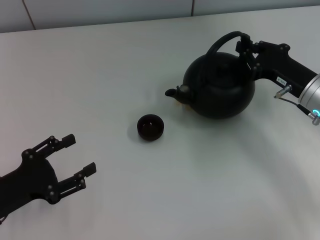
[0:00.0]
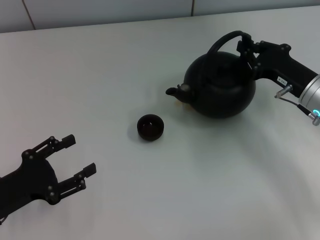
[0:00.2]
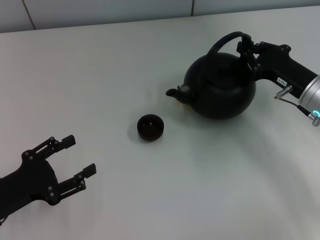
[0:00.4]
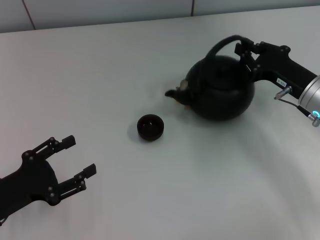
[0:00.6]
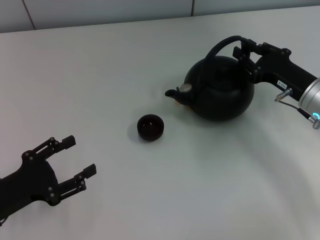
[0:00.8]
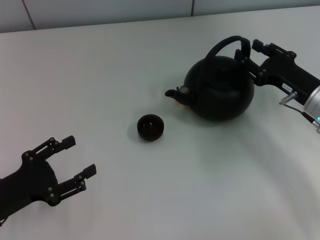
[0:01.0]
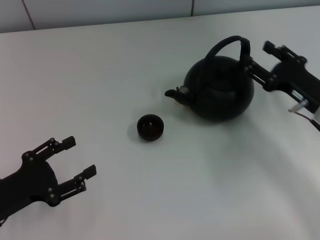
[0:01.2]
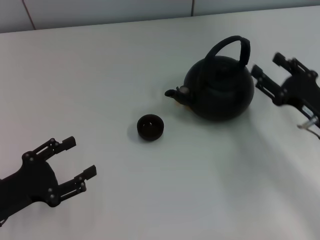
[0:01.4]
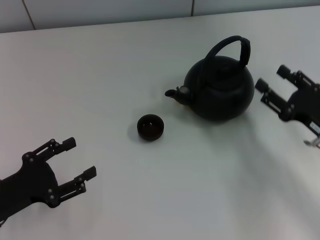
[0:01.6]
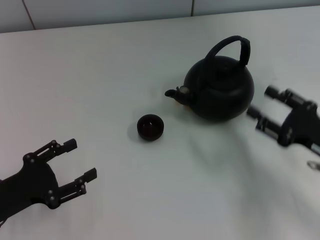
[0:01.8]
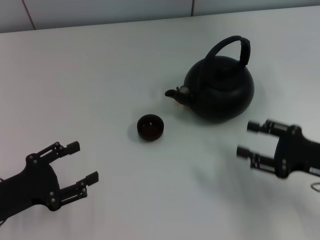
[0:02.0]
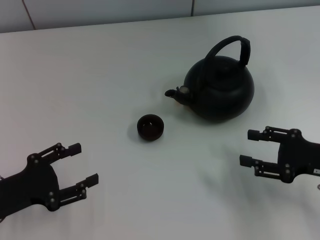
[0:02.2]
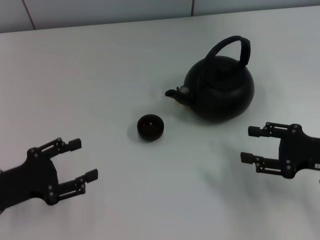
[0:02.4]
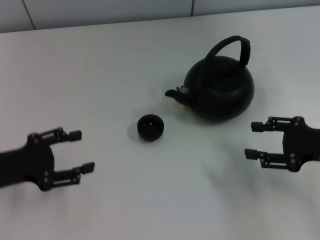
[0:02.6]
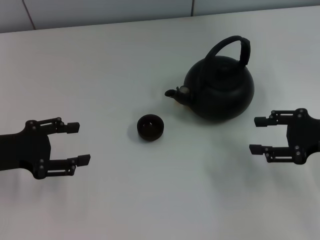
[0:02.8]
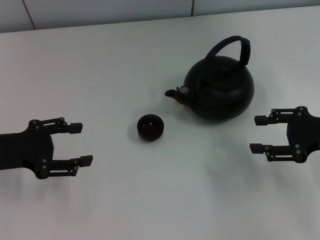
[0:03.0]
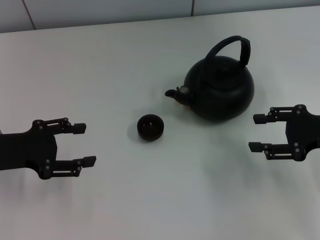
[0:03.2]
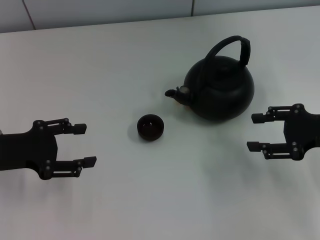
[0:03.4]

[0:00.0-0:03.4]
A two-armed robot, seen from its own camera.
Task of the whole recording: Grasp the handle of the teapot with one hand and pour tea into the teacup.
Step, 0:00.0 to 0:01.4: Put down the teapot with the right gripper.
0:00.0 to 0:01.6: The right gripper heads backward, covering approximately 10 cm, and opens its fingers.
0:01.6 to 0:03.4: The right gripper travels upward by roughly 5 cm; the left gripper travels forward and upward by roughly 10 cm.

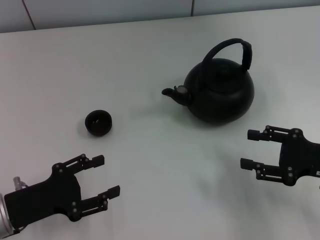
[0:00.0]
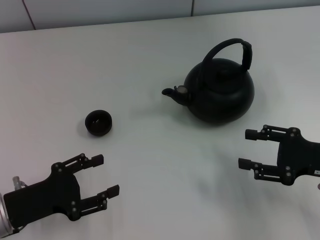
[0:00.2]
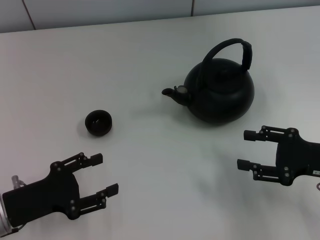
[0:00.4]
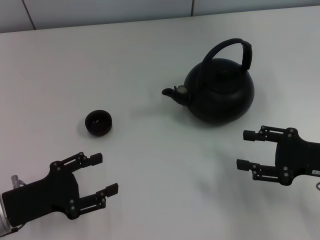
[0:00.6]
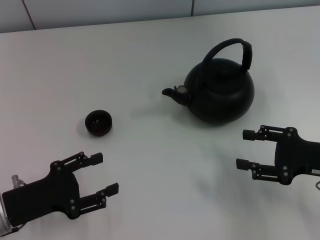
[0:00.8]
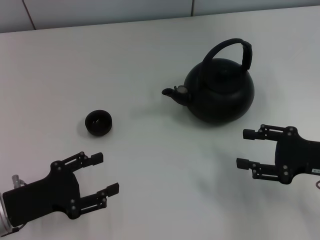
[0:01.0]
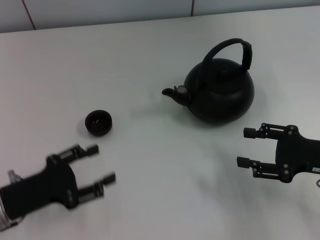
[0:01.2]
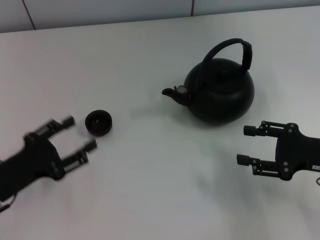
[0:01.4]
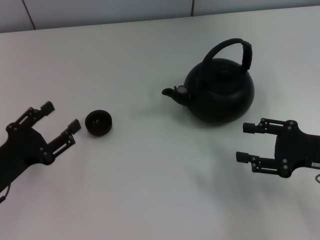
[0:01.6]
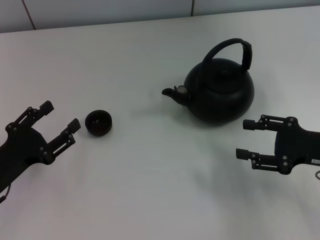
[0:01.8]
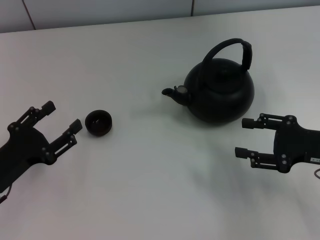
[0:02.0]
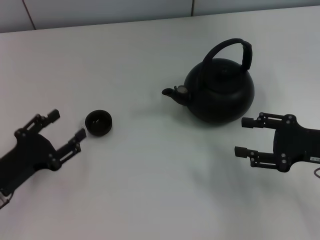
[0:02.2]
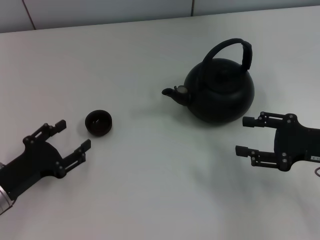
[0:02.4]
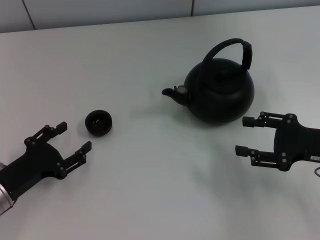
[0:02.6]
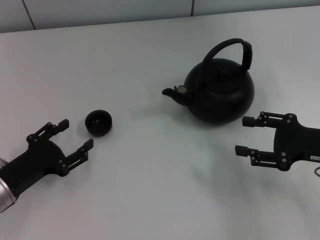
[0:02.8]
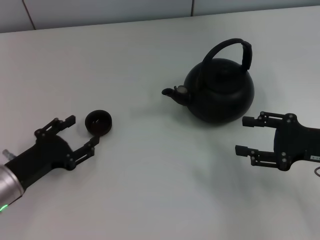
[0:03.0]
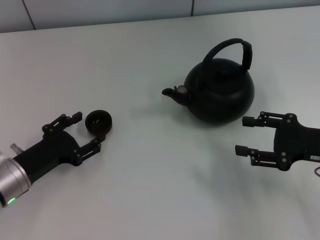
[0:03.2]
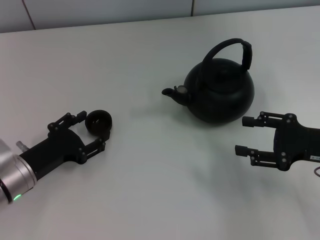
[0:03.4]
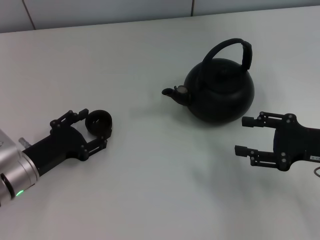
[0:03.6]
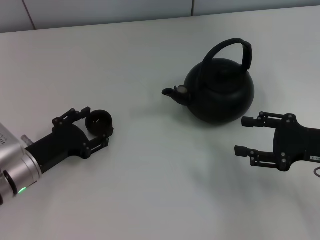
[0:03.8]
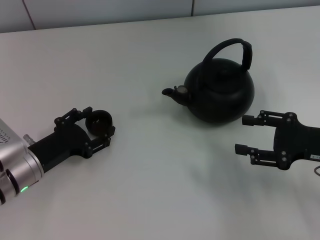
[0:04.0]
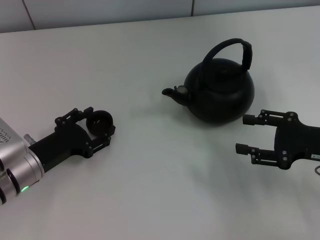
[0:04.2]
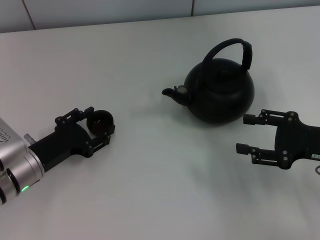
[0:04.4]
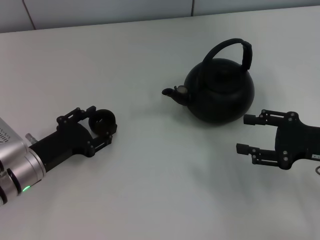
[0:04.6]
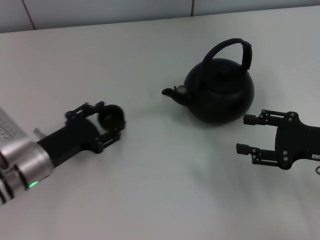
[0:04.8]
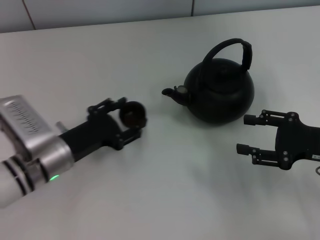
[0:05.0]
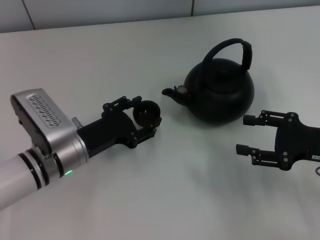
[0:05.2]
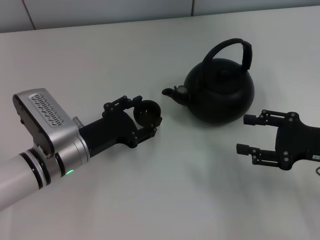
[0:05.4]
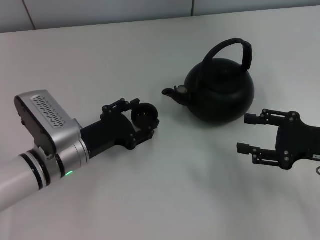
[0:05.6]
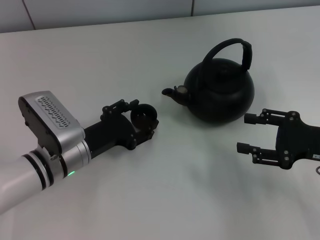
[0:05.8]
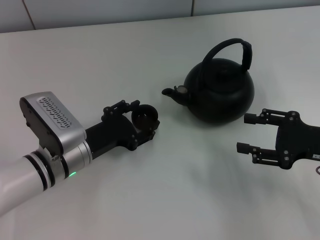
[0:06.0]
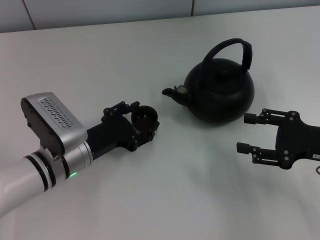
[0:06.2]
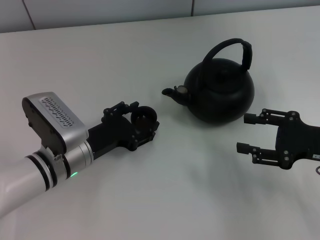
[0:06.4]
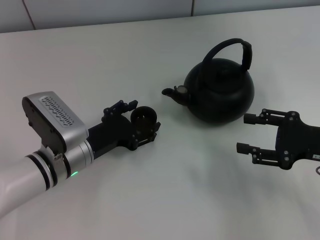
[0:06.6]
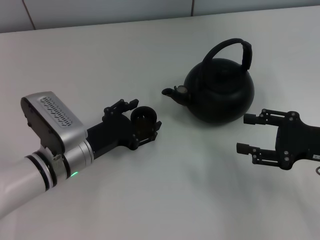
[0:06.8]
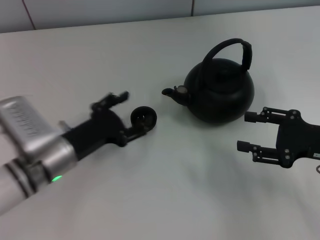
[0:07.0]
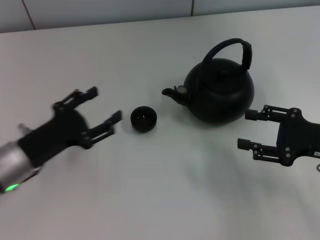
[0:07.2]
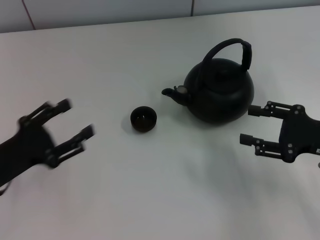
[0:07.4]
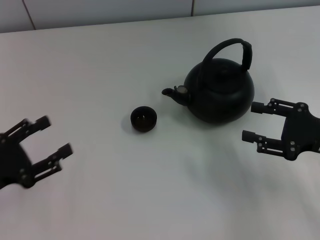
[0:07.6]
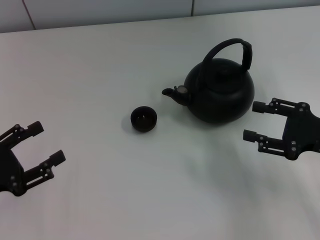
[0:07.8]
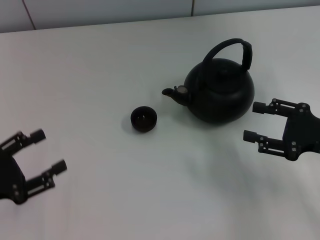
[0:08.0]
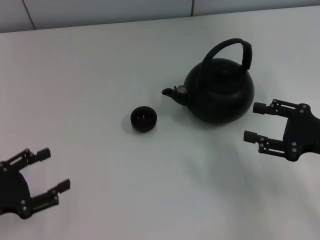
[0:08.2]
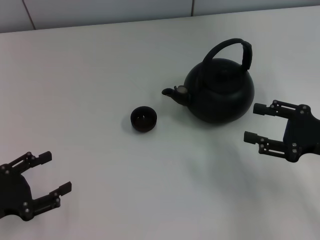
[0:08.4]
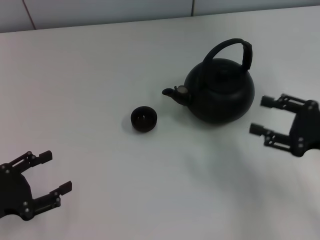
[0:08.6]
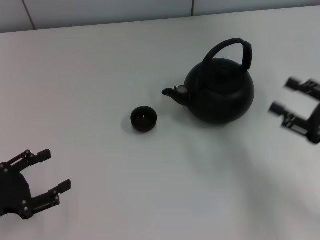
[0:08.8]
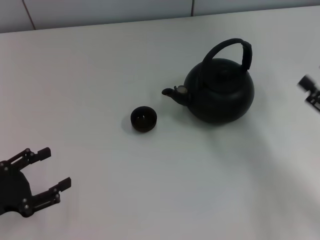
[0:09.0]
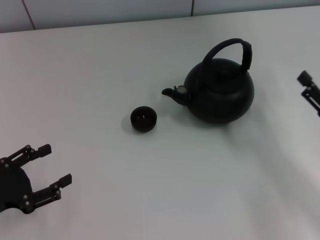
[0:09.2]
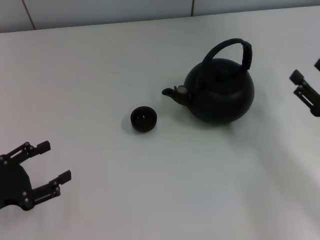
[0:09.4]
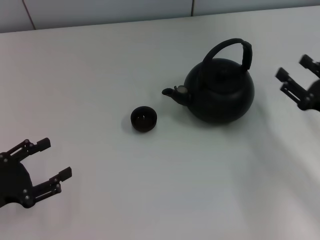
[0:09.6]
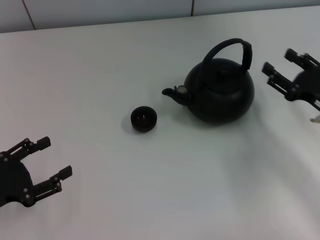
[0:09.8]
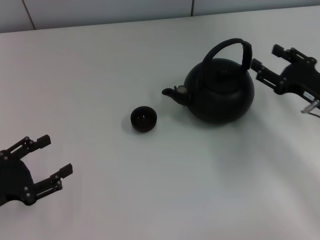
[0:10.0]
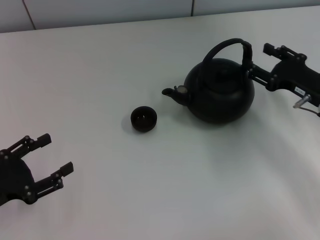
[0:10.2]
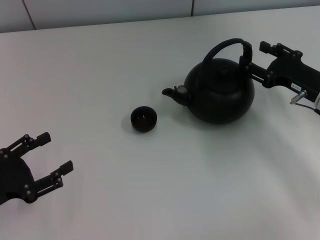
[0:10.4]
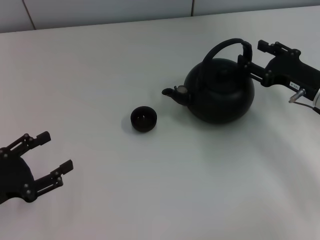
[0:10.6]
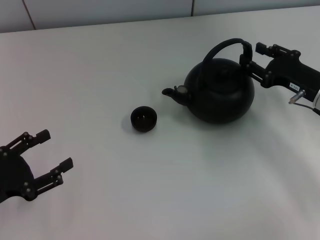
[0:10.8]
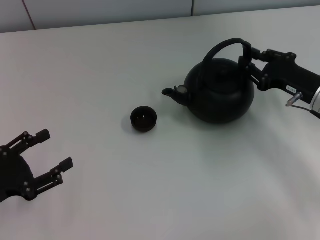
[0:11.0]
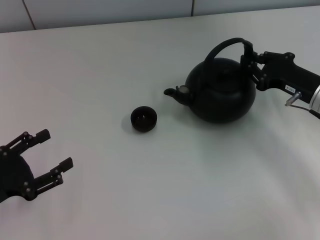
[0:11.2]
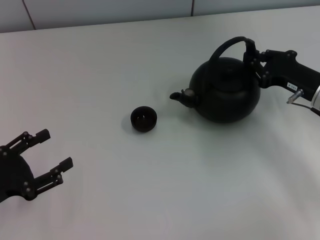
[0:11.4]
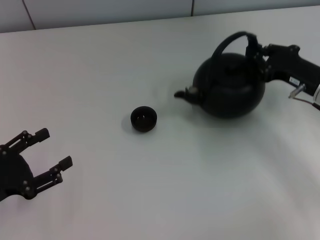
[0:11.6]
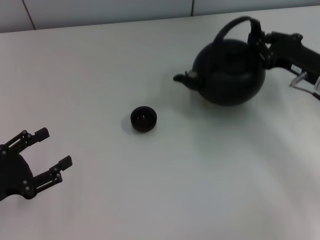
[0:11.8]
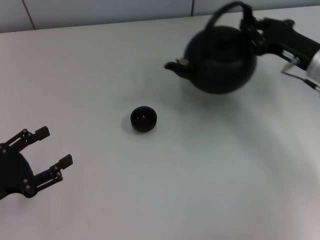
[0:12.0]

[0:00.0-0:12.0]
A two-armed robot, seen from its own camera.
Task of the whole recording: Grasp the handle of the teapot with one hand and pour tea into the teacup.
Step, 0:00.0 to 0:04.6: Pick up the teacup with the left gripper.
Step, 0:05.0 to 0:07.4: Place the teacup in the center of view with the left gripper.
Step, 0:07.8 to 0:12.0: Pick up the teapot with the right gripper.
0:01.6 to 0:03.0: The grippers stay close to where they were, moving slightly.
0:03.0 to 0:04.4: The left gripper moves some 5 cm, and closes.
0:04.4 to 0:06.0: The left gripper travels to the right by approximately 5 cm.
0:06.0 to 0:07.6: The left gripper moves to the left and backward, some 15 cm, and opens up.
0:07.6 to 0:09.0: The right gripper changes place by approximately 5 cm.
0:09.0 to 0:10.4: The right gripper moves forward, some 10 cm.
0:10.4 to 0:12.0: The right gripper changes place by approximately 5 cm, and closes.

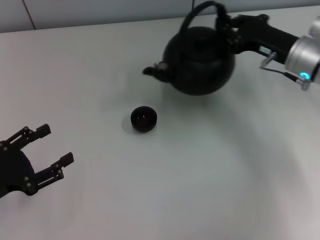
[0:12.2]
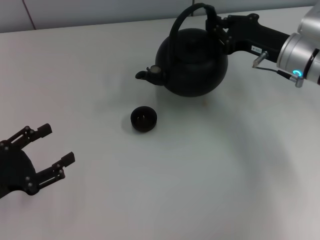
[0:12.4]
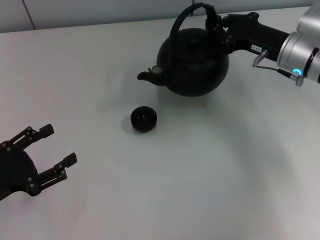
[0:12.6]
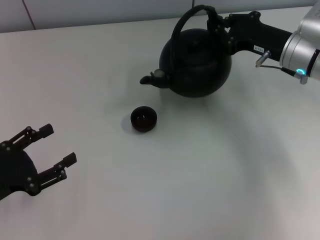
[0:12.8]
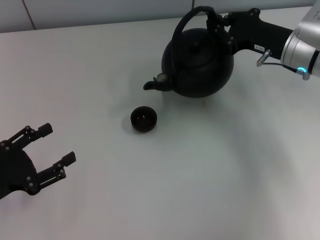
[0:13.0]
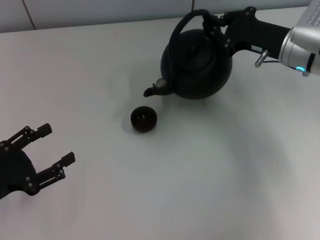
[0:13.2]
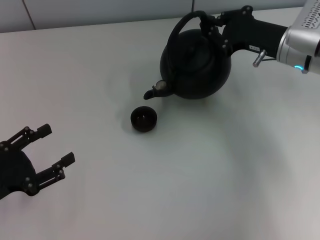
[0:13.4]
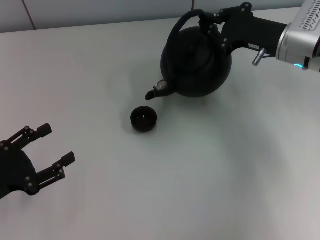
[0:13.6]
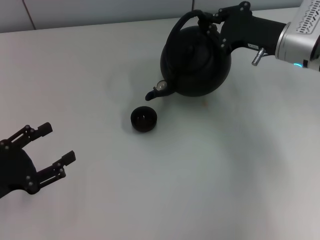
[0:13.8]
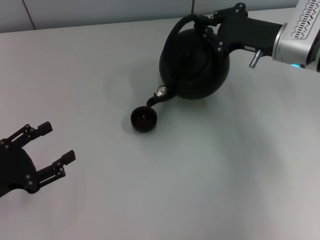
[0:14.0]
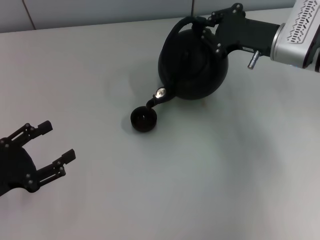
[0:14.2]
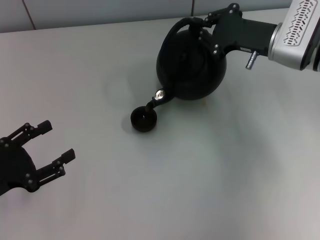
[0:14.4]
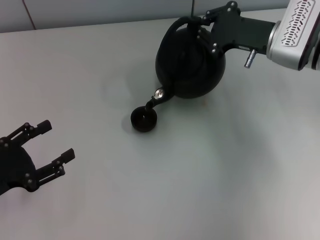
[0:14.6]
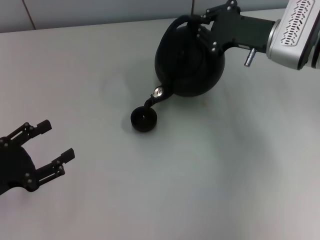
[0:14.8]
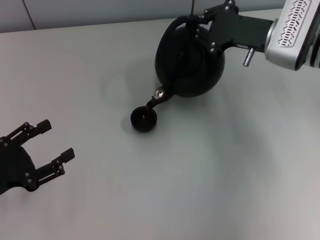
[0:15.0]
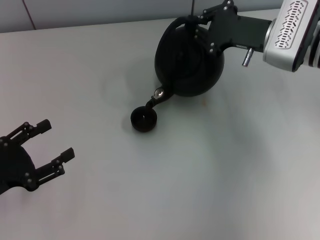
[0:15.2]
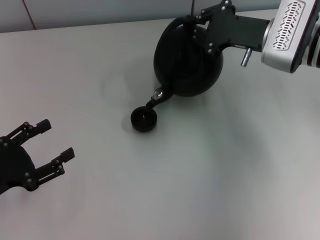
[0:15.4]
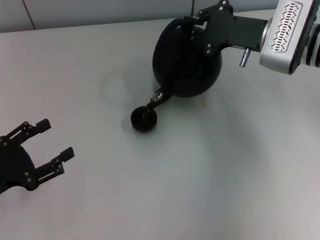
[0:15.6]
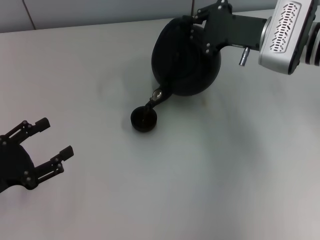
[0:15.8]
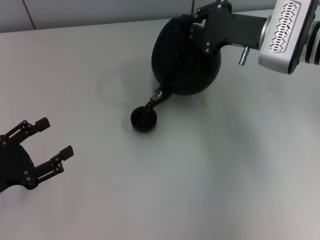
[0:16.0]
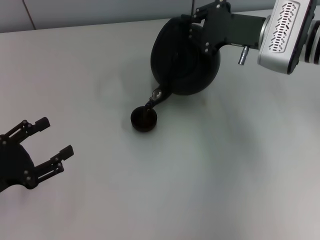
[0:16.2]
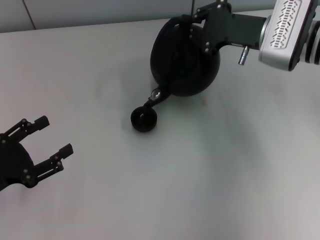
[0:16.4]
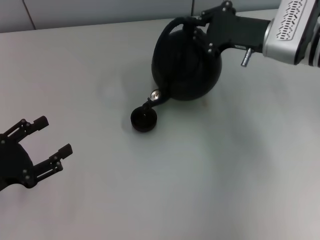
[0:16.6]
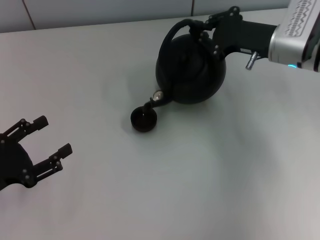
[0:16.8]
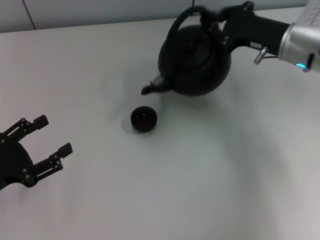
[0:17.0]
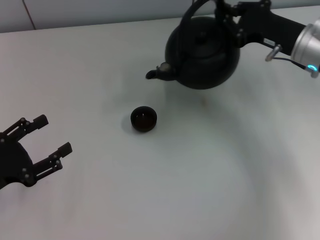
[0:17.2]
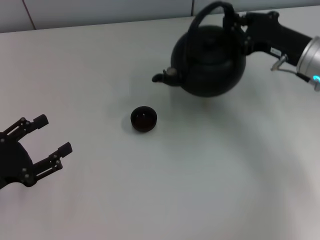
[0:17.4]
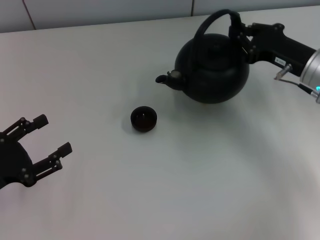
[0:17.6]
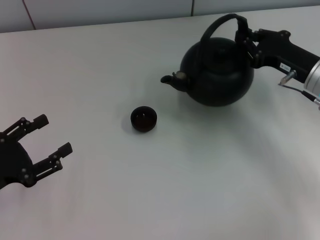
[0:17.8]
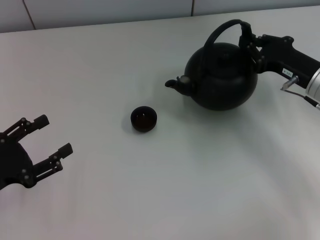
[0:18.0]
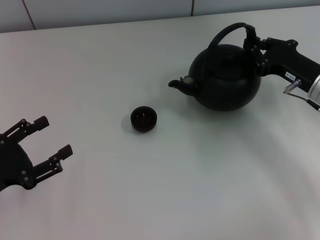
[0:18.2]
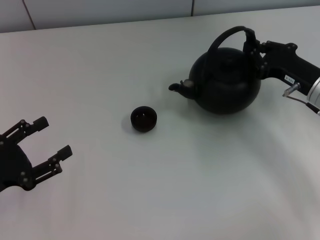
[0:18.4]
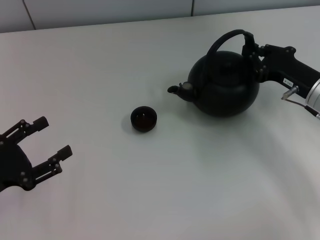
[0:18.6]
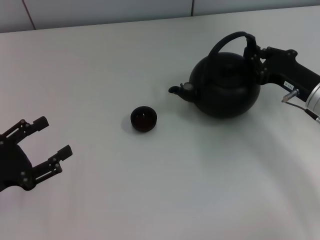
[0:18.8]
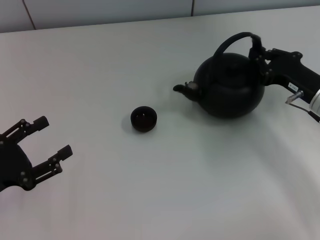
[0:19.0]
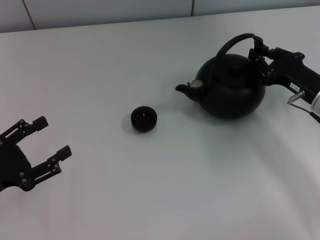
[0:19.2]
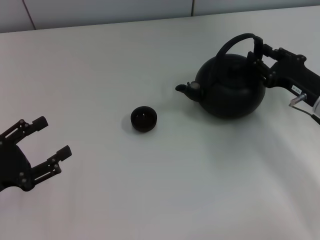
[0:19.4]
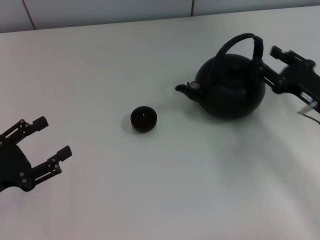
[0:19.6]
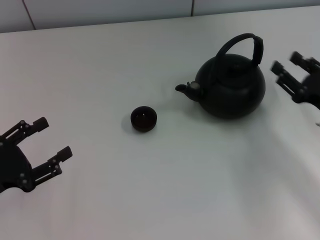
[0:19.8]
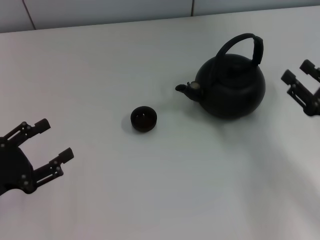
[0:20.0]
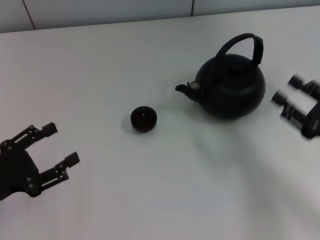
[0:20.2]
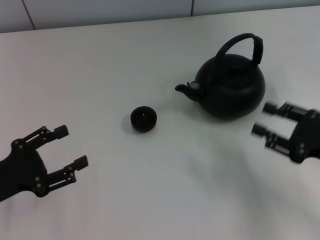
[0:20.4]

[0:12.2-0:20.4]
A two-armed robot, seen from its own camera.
Task of the whole recording: Grasp the handle of the teapot with one hand and pour tea into the teacup.
Step, 0:17.2 to 0:19.6: Put down the teapot with the right gripper.
0:13.8 to 0:15.4: There are only small adjustments of the grippers.
0:15.4 to 0:17.2: The right gripper ends up about 5 cm from where it was.
0:17.2 to 0:18.8: The right gripper heads downward and backward, covering some 10 cm.
0:18.8 to 0:20.4: The right gripper goes roughly 10 cm backward, and opens up.
